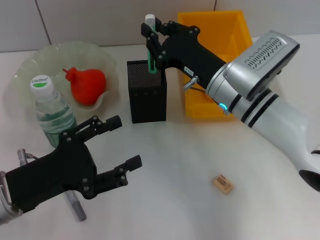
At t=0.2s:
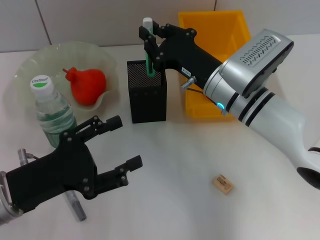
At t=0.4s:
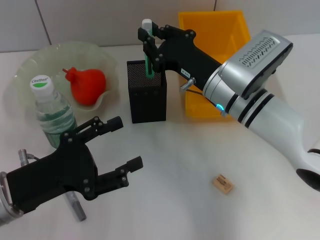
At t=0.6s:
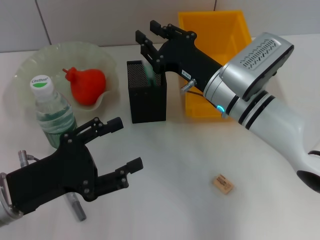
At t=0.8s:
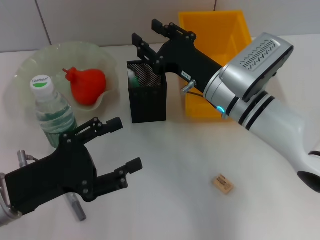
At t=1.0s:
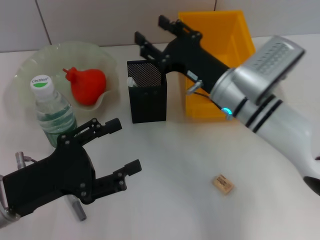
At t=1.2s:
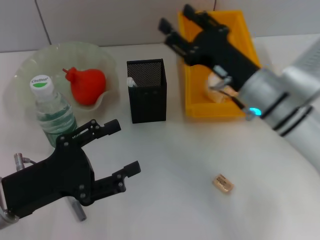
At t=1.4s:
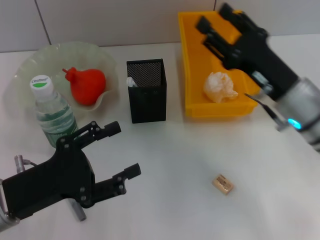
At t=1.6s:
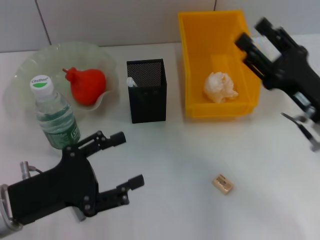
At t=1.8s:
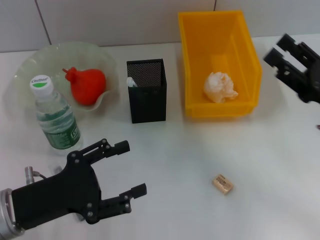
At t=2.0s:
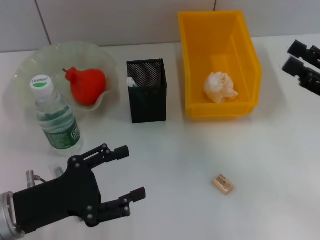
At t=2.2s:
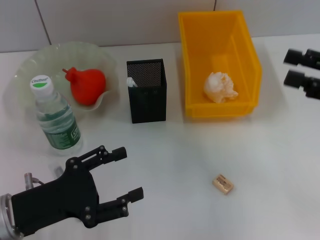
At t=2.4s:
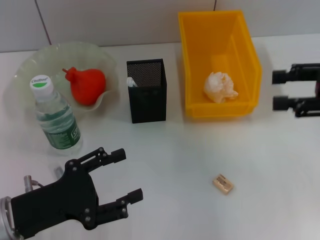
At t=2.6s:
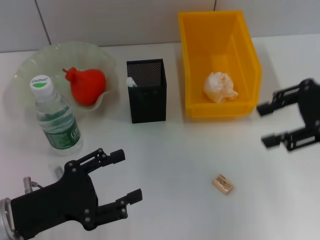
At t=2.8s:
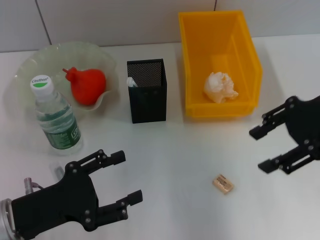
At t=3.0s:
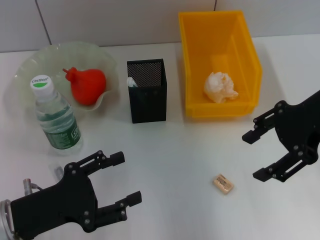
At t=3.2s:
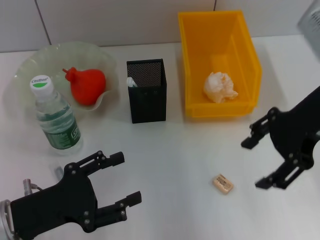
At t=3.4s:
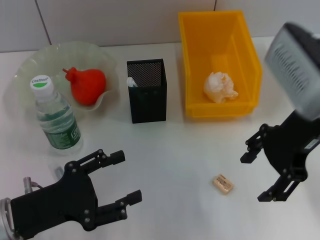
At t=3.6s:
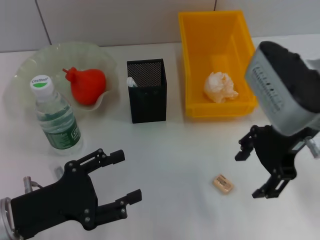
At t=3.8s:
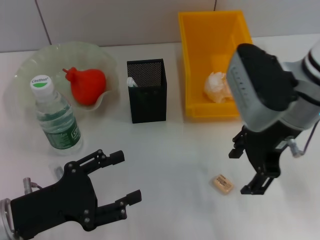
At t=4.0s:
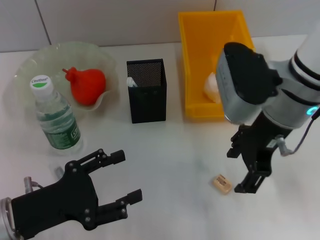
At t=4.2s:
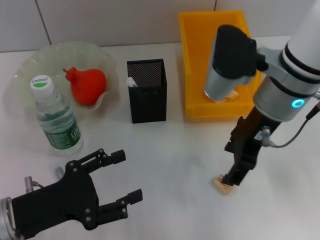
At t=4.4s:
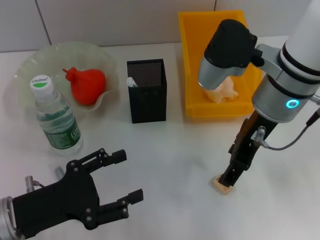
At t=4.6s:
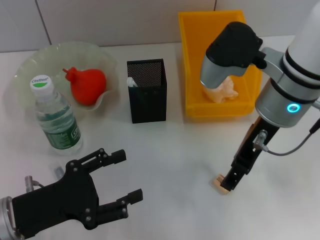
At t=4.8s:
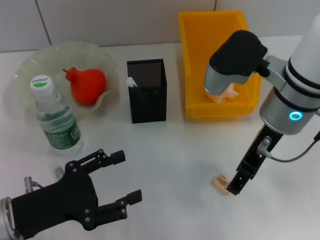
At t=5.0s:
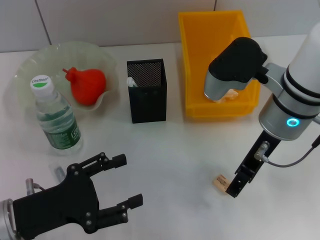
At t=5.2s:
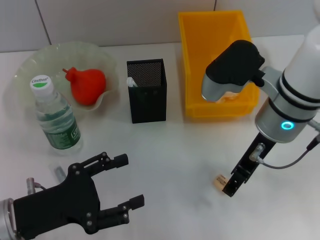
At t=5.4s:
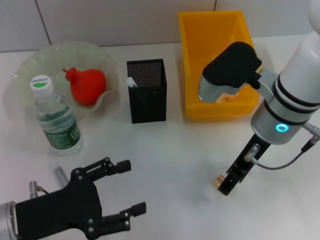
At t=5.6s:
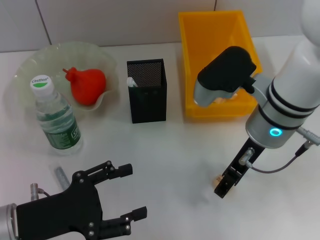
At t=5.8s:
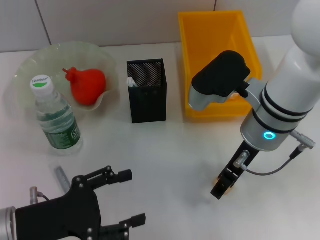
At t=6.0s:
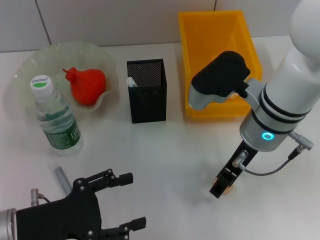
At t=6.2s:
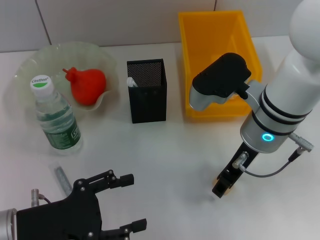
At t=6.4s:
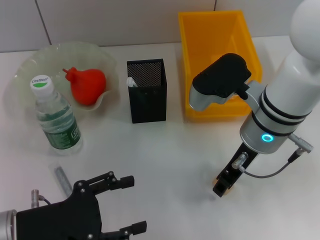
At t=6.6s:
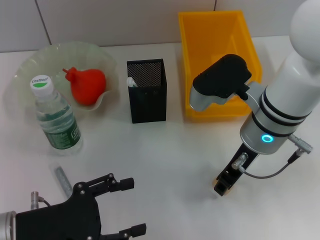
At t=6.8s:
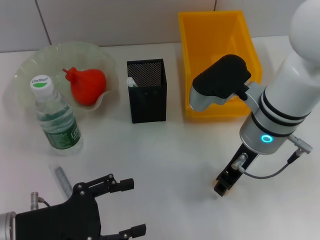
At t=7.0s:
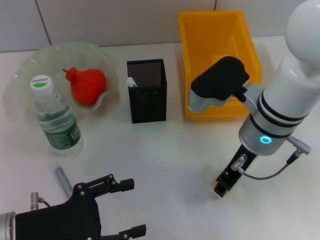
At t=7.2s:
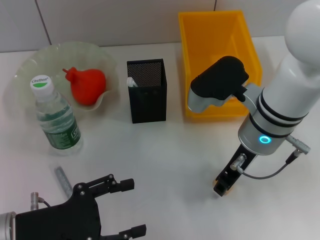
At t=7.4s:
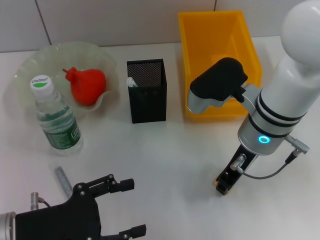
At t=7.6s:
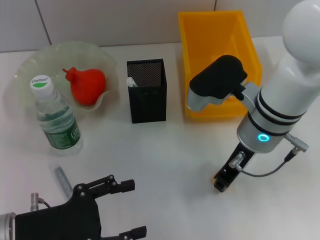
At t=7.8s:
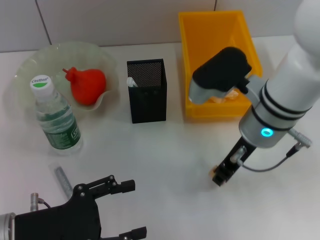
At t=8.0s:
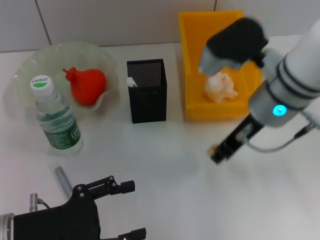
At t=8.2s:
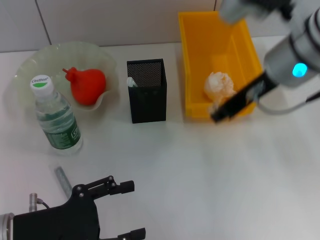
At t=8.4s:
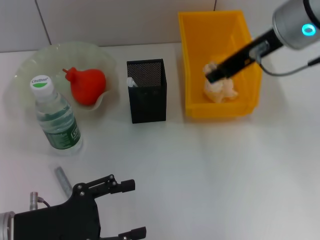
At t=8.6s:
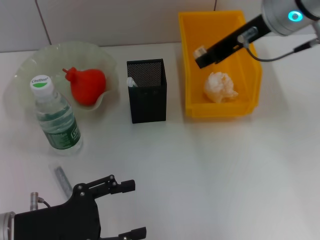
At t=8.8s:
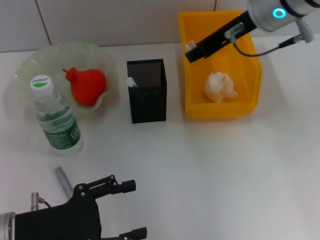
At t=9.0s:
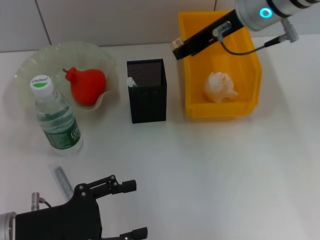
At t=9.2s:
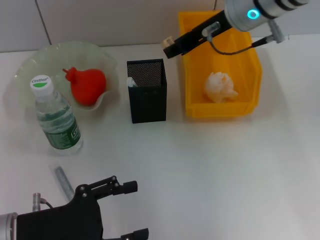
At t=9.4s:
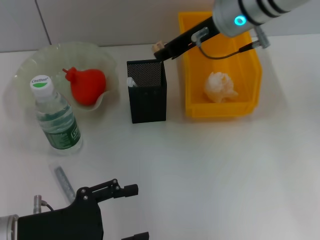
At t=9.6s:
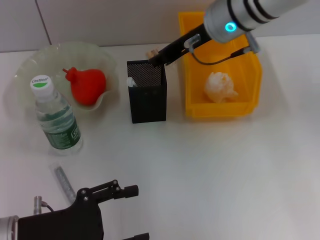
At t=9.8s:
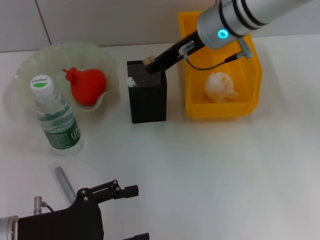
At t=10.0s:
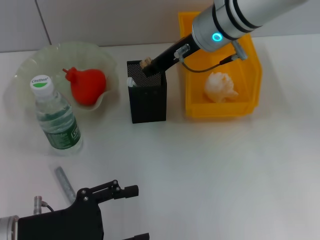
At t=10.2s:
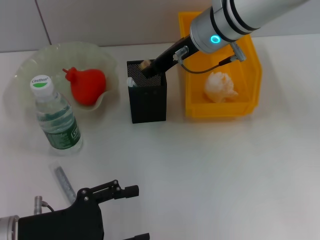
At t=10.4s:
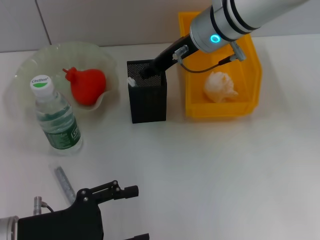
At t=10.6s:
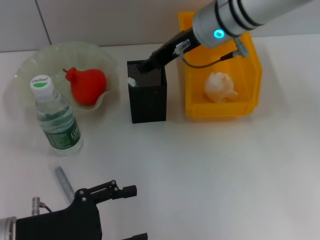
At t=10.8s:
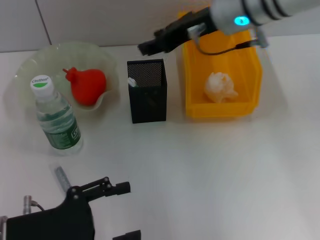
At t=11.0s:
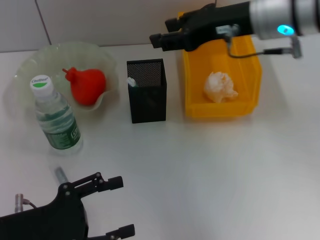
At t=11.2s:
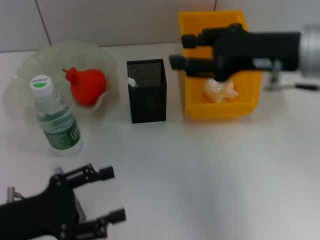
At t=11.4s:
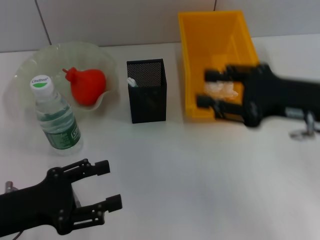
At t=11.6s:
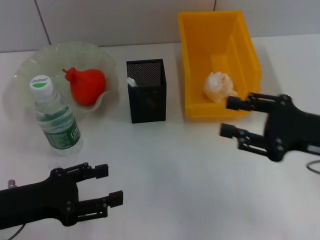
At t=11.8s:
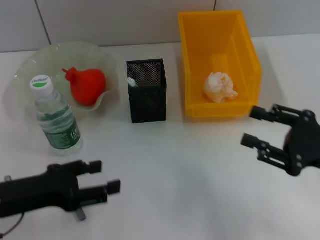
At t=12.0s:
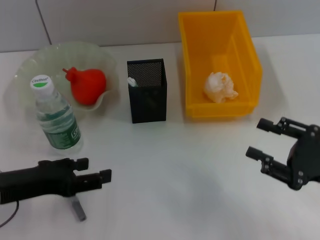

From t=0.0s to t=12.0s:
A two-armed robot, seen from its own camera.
Step, from t=1.0s to t=7.2s: Grab the eraser with the right hand.
Step, from t=7.4s to t=10.6s: Put the eraser into the pen holder with the right hand.
From t=0.0s to t=1.6s: The right gripper moves to the right and backward, about 15 cm, and opens up.
From t=1.6s to t=3.0s: The right gripper is displaced upward by about 15 cm.
From t=3.0s to t=4.4s: The right gripper is displaced to the left by about 10 cm.
From t=4.4s to t=6.0s: The right gripper moves some 5 cm.
From t=6.0s to t=7.6s: The right gripper closes its fingers.
From t=7.6s to t=9.0s: The right gripper travels upward and forward by about 15 cm.
From t=9.0s to t=10.4s: The right gripper shifts some 5 cm downward.
From t=10.4s to t=12.0s: The right gripper shifts about 35 cm backward, to the right and downward; the left gripper changes place by some 5 cm.

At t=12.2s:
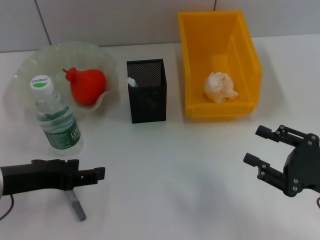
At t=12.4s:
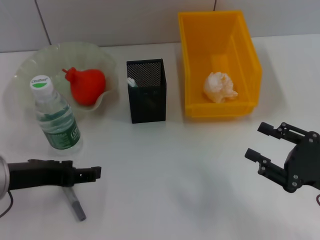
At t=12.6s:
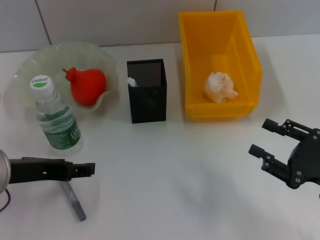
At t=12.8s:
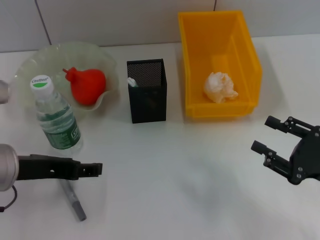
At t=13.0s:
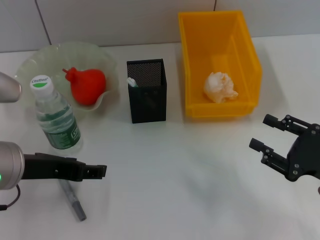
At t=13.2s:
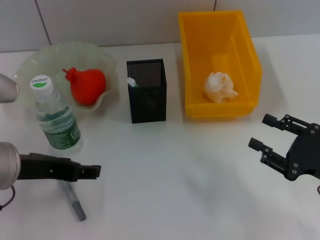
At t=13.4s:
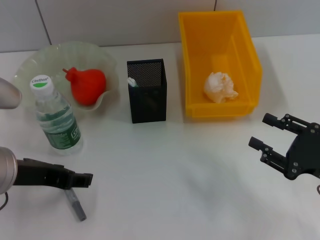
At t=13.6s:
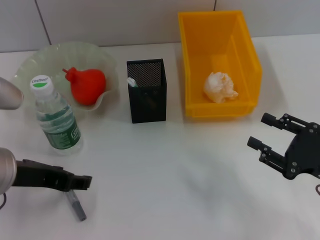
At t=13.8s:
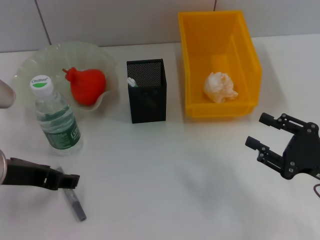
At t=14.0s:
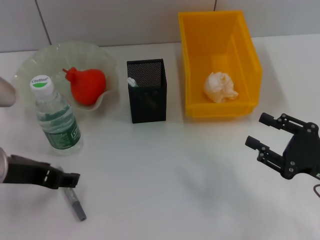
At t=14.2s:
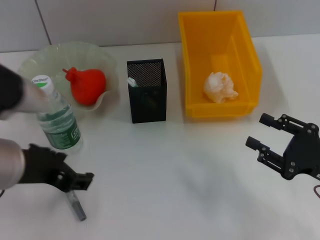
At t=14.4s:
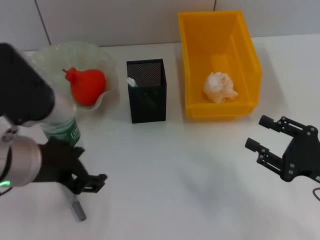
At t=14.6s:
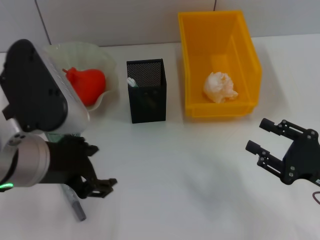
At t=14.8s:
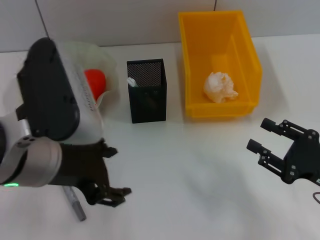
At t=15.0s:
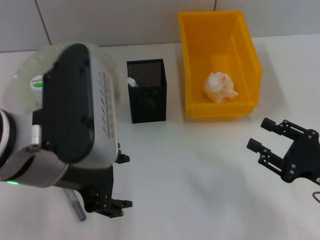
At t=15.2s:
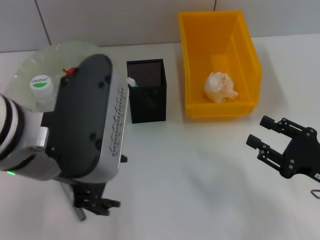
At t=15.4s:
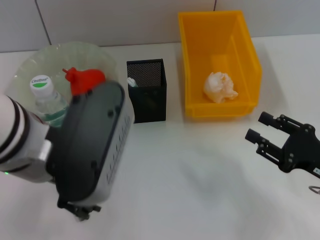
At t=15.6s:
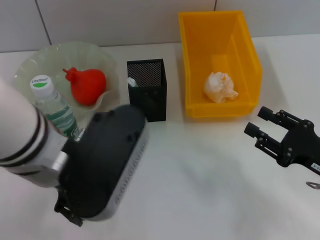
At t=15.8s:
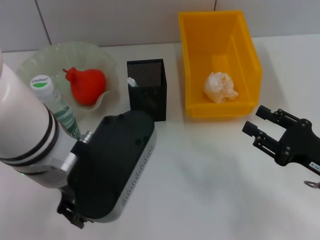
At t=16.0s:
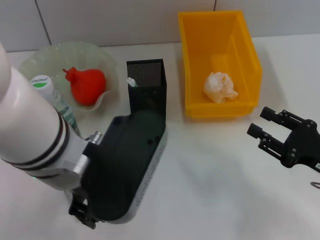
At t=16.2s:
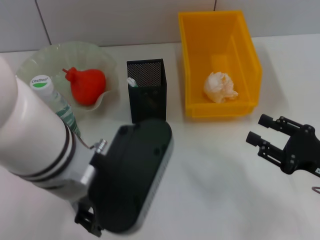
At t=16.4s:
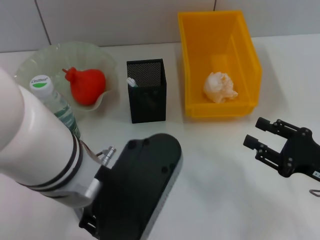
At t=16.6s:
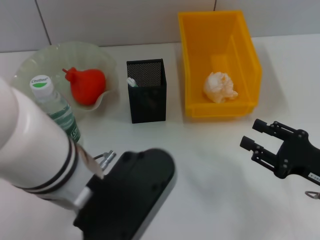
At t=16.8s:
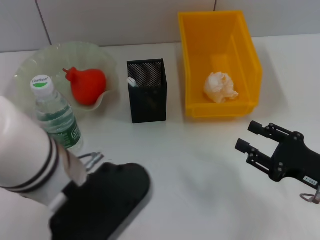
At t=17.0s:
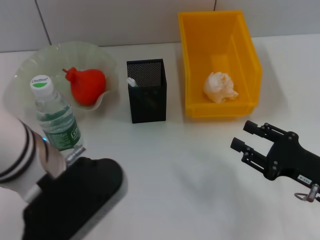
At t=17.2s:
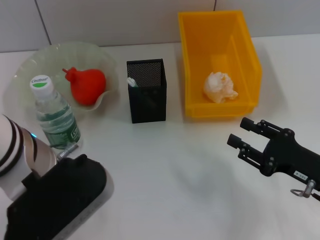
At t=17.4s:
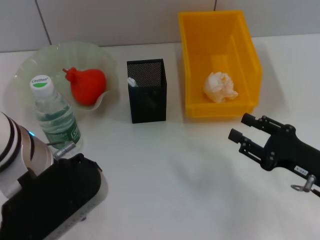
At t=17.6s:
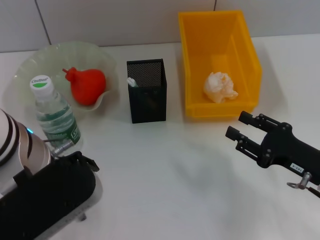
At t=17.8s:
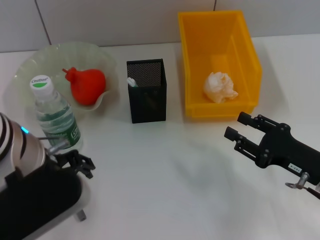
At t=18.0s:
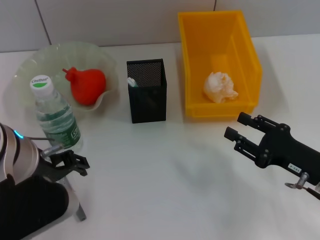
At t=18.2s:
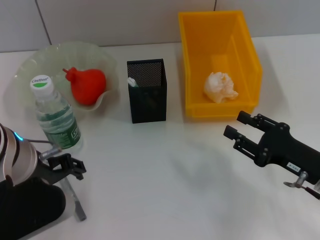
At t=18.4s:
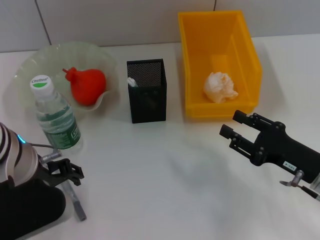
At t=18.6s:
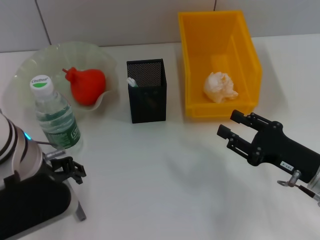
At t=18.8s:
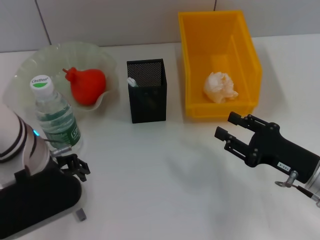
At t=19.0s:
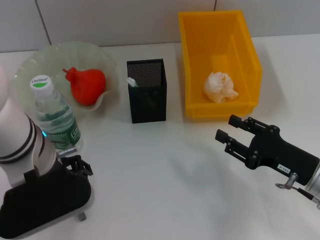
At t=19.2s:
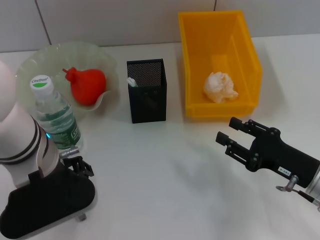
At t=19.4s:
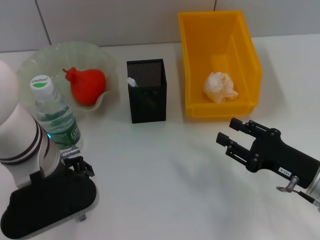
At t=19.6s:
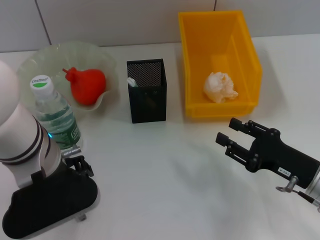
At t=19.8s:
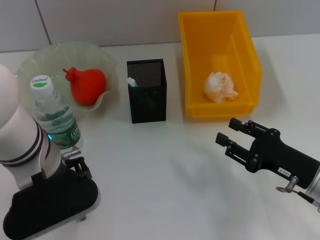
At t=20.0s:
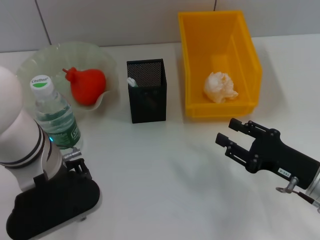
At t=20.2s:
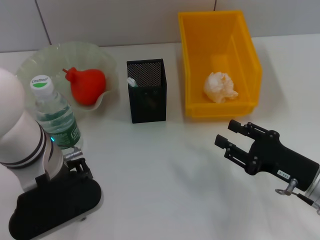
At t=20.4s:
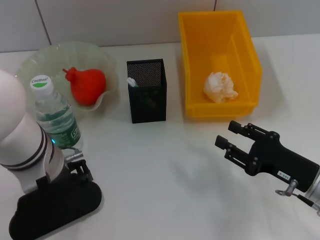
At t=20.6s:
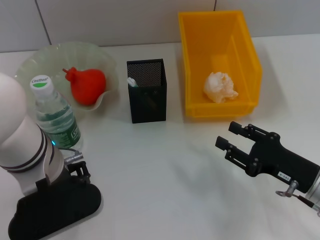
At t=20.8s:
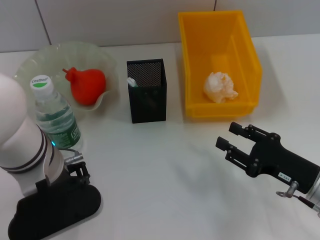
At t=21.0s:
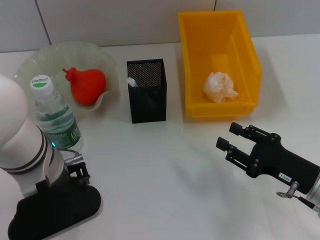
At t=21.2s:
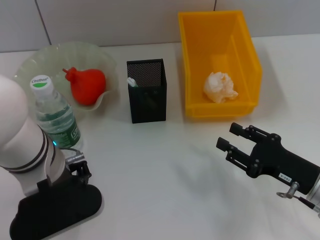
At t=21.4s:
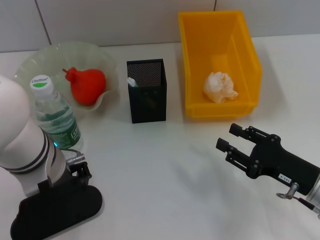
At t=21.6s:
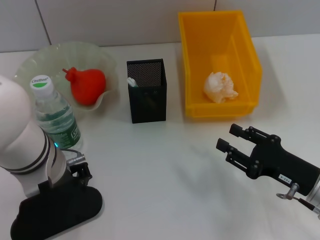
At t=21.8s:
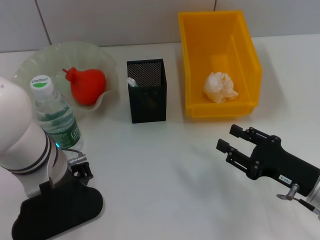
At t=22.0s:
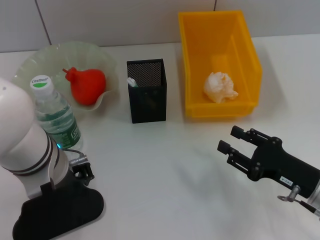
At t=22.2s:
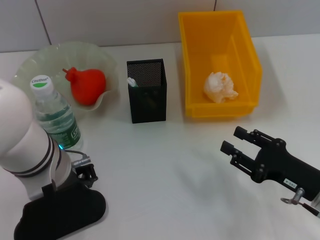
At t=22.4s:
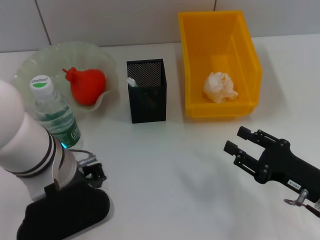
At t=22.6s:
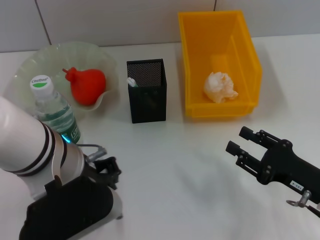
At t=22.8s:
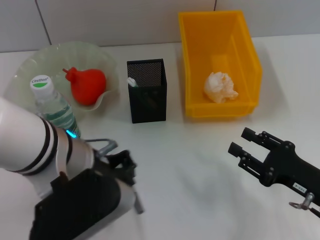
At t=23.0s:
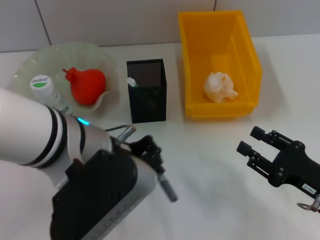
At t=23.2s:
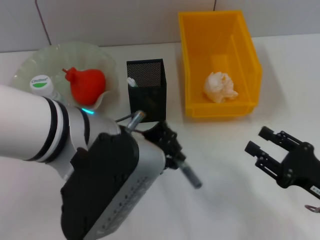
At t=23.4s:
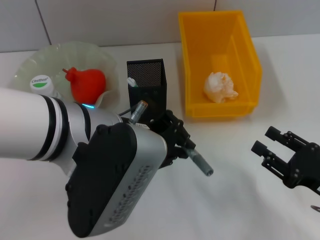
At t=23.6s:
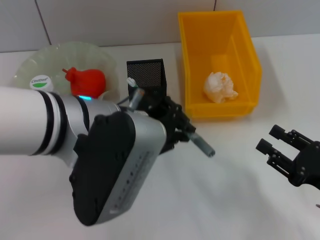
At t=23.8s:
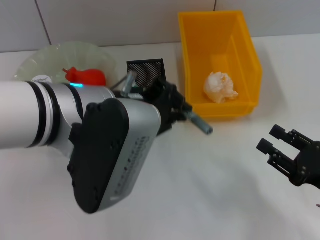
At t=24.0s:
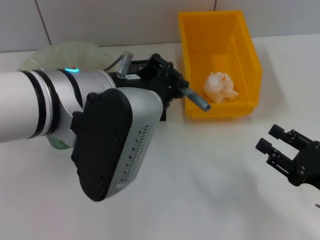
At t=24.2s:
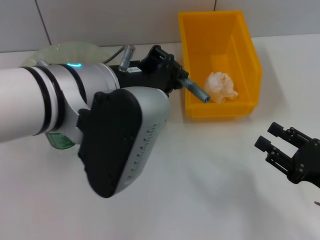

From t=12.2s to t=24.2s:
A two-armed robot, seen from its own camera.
Step, from t=12.2s to t=22.4s: Grab the gray glue with the left hand.
From t=13.8s to t=15.2s: The left gripper shifts roughly 10 cm to the right and upward.
From t=16.6s to t=18.2s: The left gripper goes some 10 cm to the left.
From t=18.2s to t=19.8s: The grippers move only a little.
From t=19.8s to t=21.2s: Neither gripper changes place.
From t=21.2s to t=22.6s: There are only small adjustments of the grippers.
From t=22.6s to t=24.2s: The left gripper goes approximately 5 cm upward.
